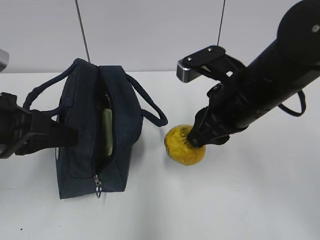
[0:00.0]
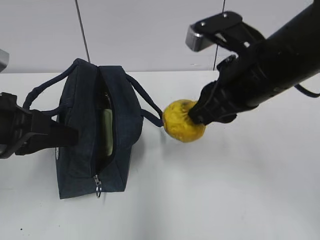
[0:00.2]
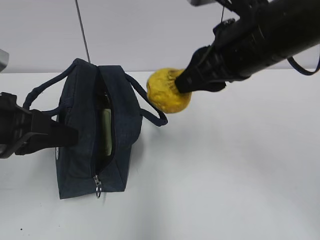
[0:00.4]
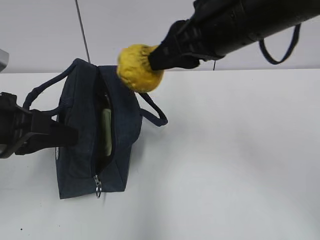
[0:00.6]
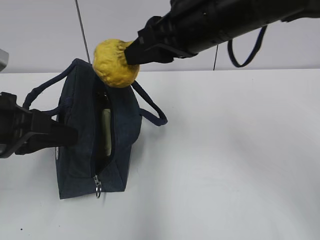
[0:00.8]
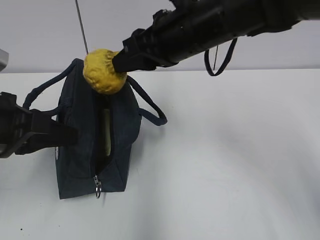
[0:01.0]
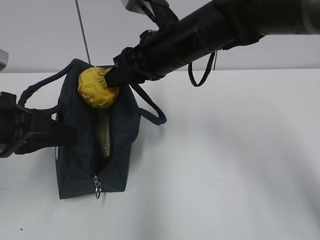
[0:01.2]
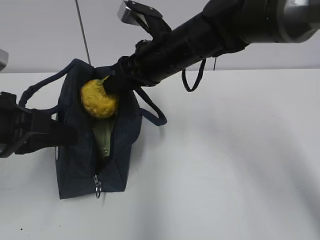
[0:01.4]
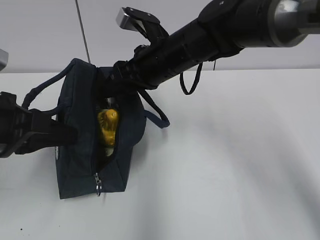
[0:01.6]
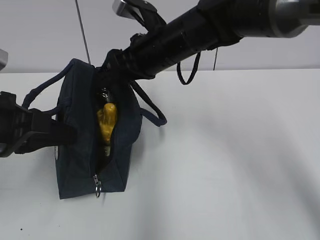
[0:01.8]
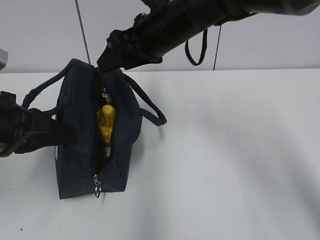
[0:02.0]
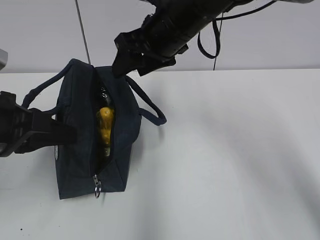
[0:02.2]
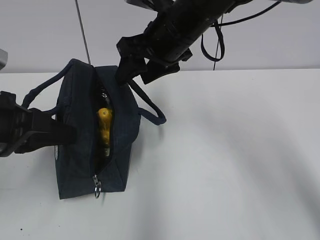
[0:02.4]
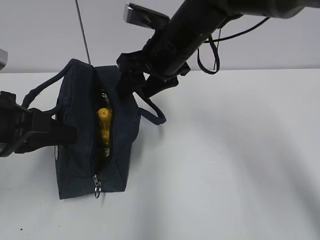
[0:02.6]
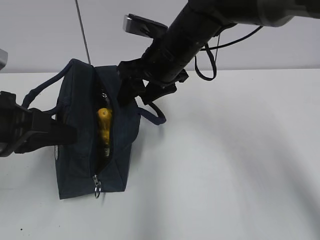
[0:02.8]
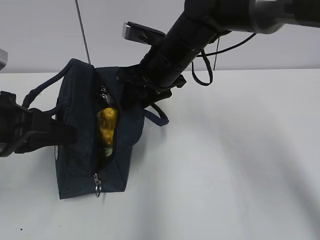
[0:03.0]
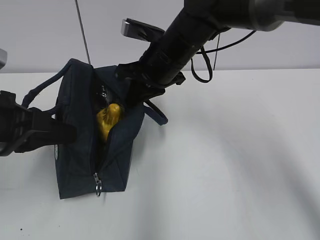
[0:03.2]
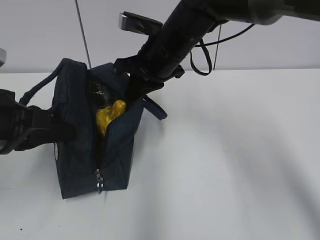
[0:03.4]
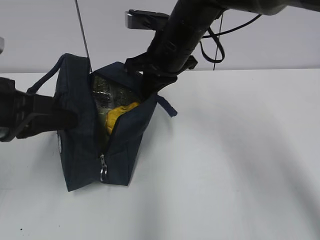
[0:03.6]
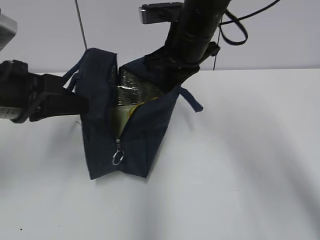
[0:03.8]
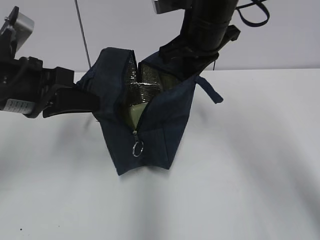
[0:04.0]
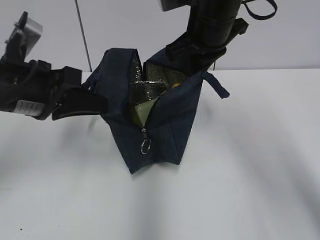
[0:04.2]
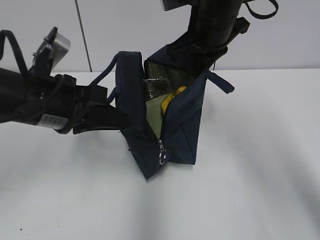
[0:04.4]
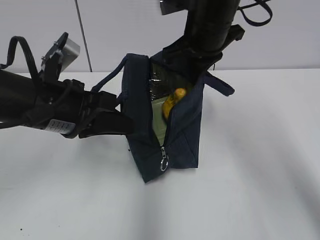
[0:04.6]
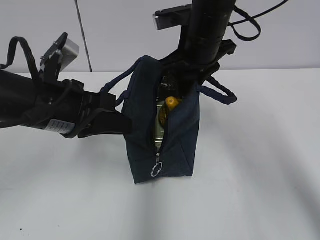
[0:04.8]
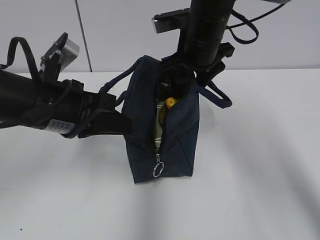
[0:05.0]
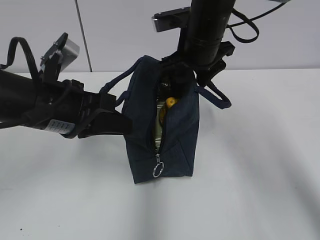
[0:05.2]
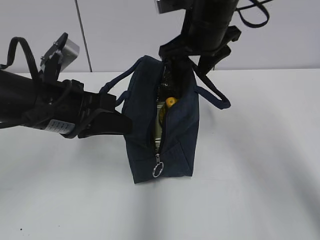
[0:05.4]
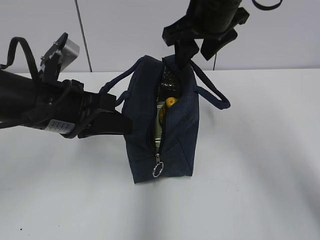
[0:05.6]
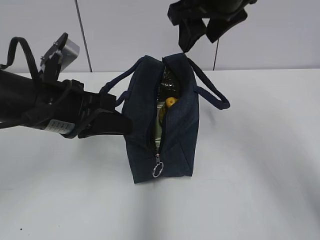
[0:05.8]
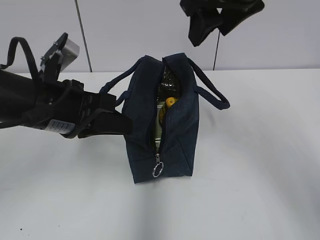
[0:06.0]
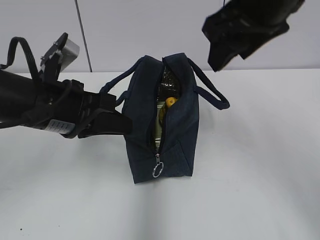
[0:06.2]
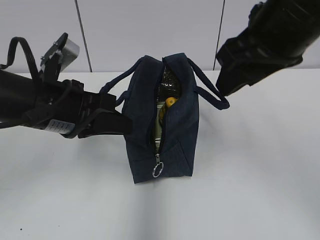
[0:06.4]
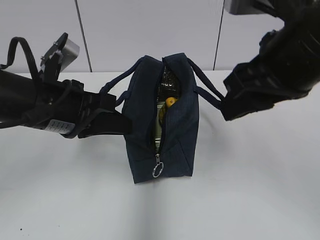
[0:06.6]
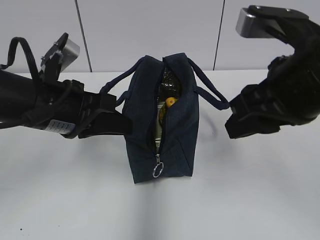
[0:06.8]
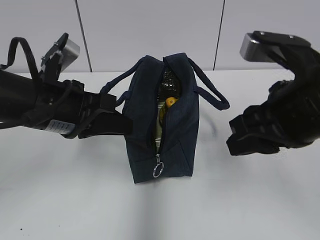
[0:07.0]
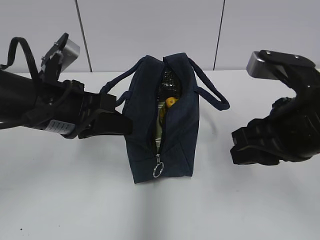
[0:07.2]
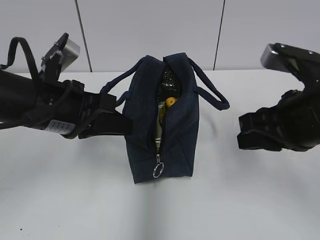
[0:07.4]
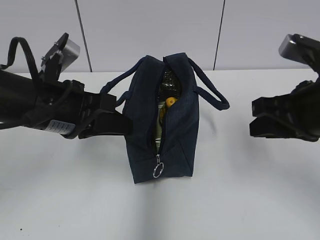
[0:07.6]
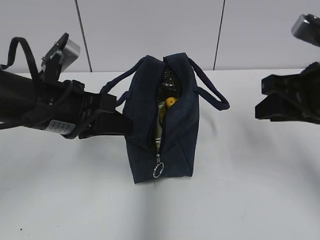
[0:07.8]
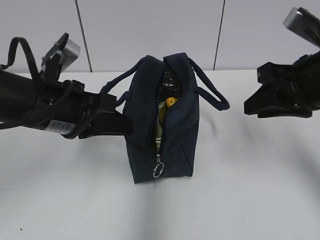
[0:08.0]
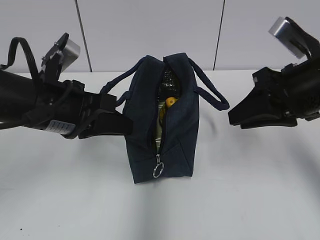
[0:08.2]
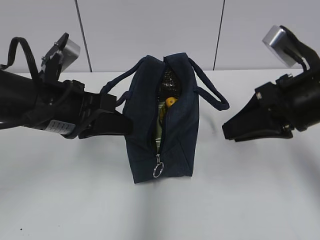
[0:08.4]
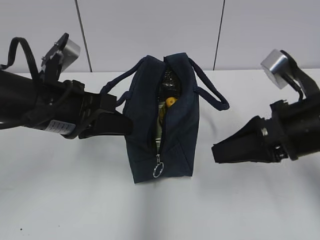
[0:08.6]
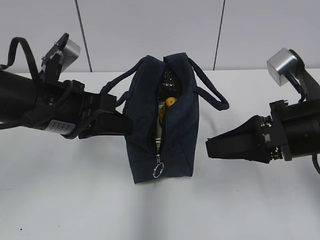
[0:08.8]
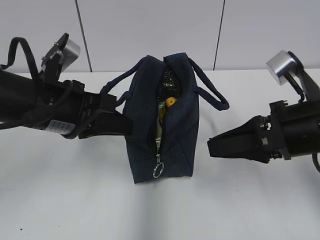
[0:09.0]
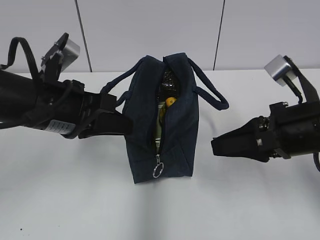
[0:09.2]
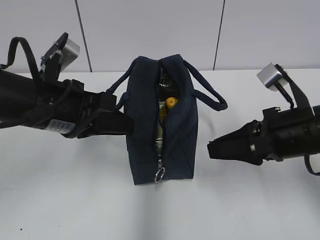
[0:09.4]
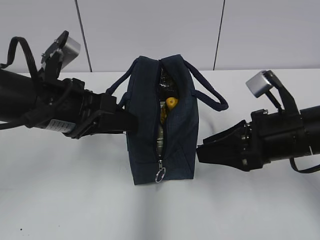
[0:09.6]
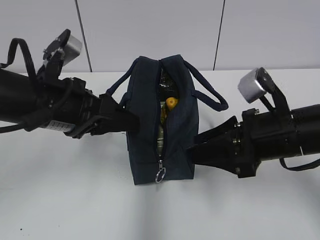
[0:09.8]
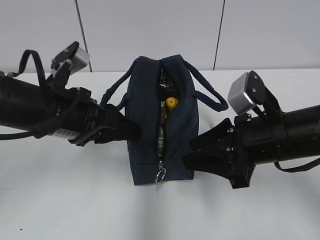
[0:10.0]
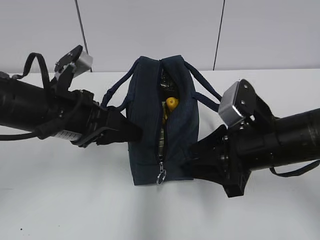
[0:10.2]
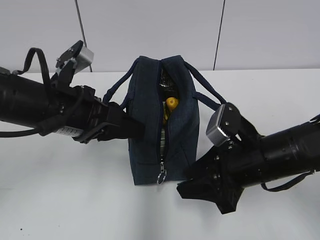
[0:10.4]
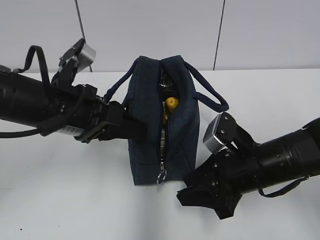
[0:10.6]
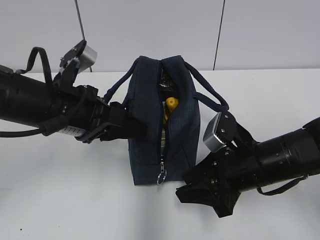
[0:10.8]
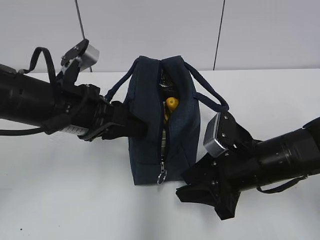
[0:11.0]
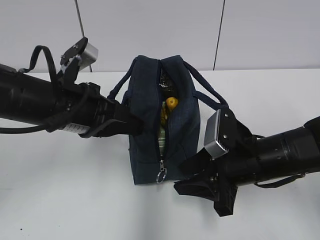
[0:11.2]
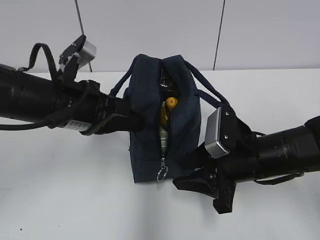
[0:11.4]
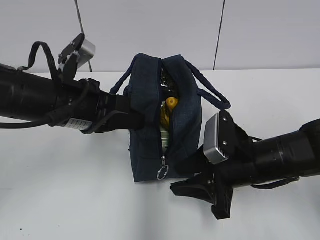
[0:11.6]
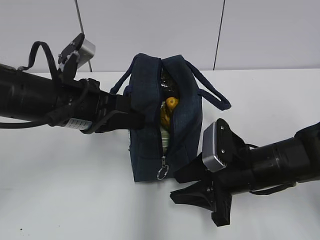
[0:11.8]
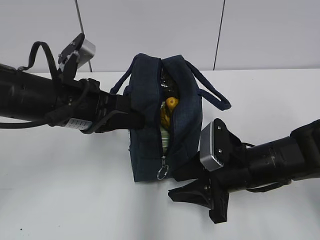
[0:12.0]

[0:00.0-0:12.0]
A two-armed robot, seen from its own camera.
Step, 0:00.0 to 0:02.0: Place it into the bag with your right hand.
Step, 0:02.2 to 0:03.4: Grab the lunch bag with your right hand.
Step, 0:03.6 to 0:03.8: Move the lunch bag to the left.
Step, 0:04.0 to 0:05.0: Move the lunch bag to the right.
0:00.0 to 0:01.6: The right gripper goes some 15 cm forward and to the left, and opens up.
0:03.0 to 0:04.4: The left gripper shifts roughly 5 cm to the right. The right gripper travels upward and to the right by approximately 10 cm, and closes its fingers.
0:04.4 to 0:06.0: The right gripper is displaced upward and backward by roughly 10 cm, and opens up.
0:06.0 to 0:07.6: The right gripper goes about 20 cm downward, backward and to the right, and closes up.
0:09.0 to 0:10.4: The right gripper shifts approximately 5 cm downward. Meanwhile the left gripper opens.
0:10.4 to 0:12.0: The left gripper closes up.

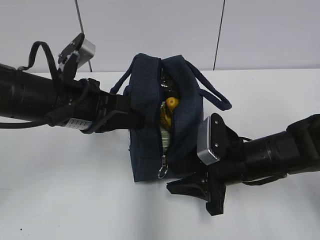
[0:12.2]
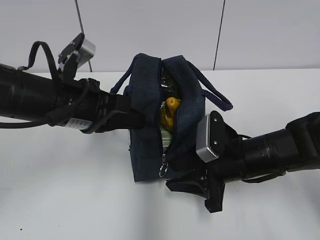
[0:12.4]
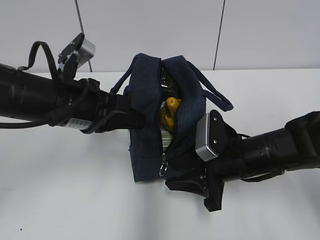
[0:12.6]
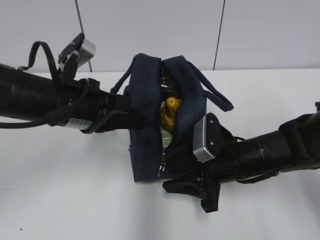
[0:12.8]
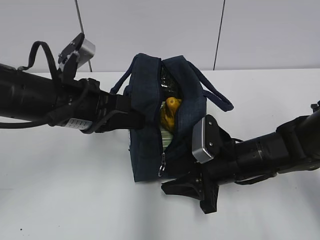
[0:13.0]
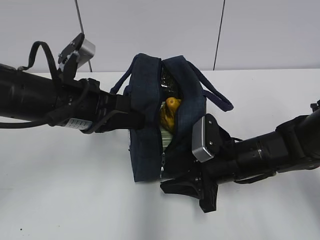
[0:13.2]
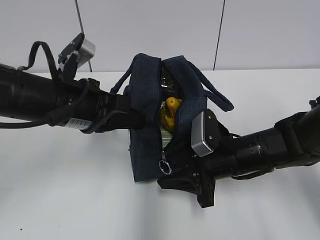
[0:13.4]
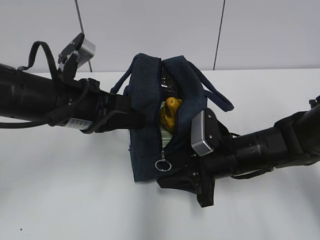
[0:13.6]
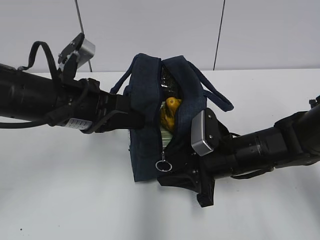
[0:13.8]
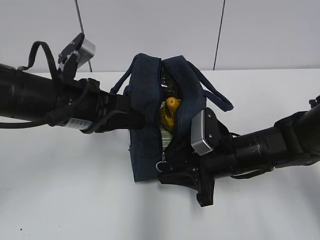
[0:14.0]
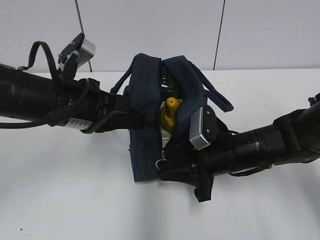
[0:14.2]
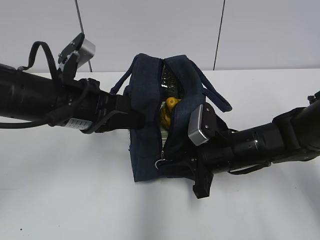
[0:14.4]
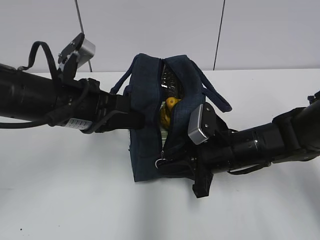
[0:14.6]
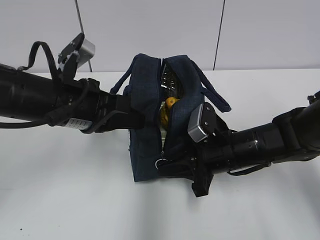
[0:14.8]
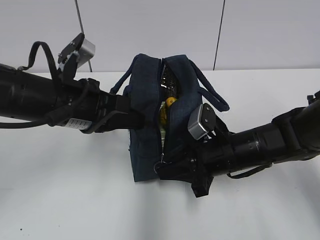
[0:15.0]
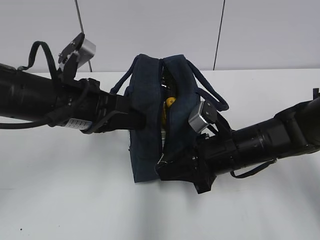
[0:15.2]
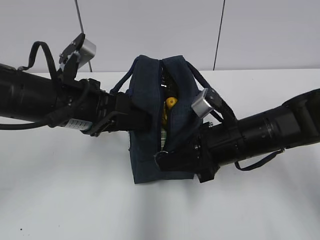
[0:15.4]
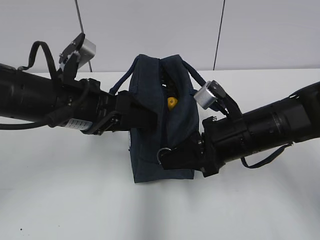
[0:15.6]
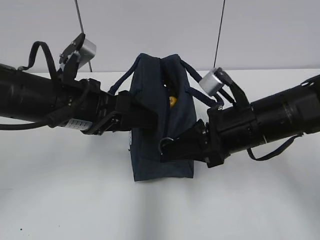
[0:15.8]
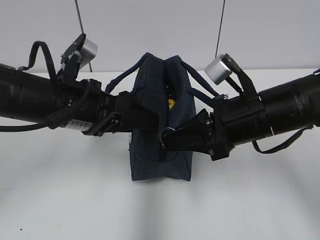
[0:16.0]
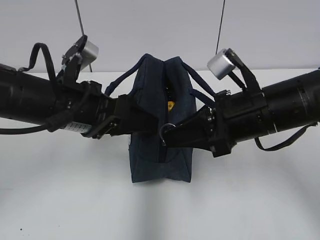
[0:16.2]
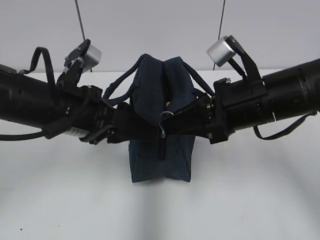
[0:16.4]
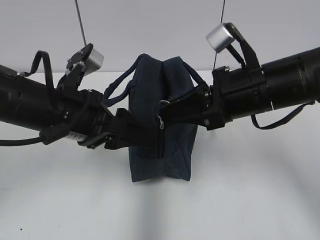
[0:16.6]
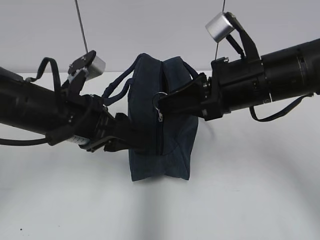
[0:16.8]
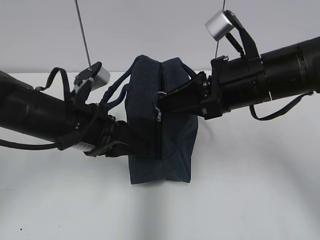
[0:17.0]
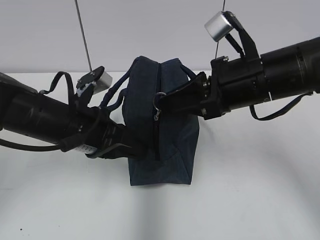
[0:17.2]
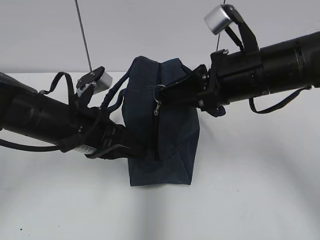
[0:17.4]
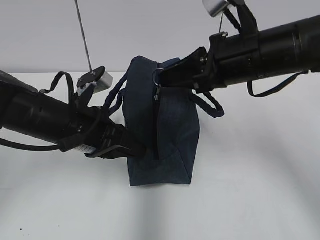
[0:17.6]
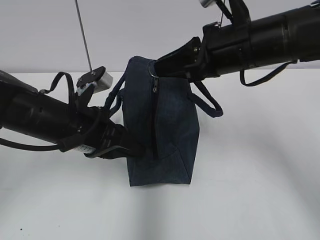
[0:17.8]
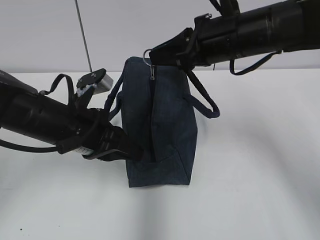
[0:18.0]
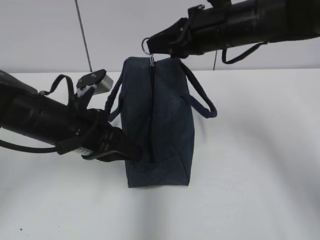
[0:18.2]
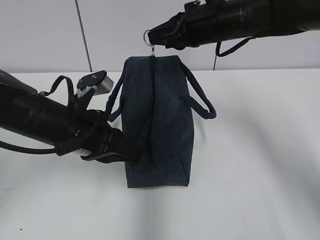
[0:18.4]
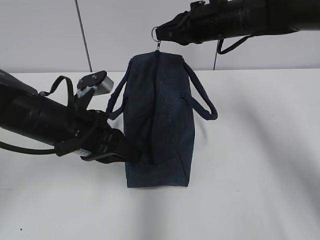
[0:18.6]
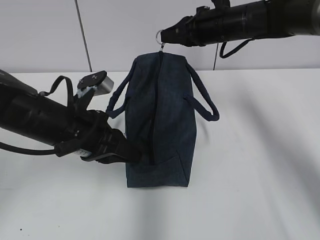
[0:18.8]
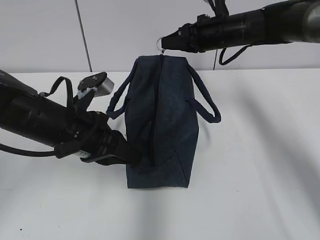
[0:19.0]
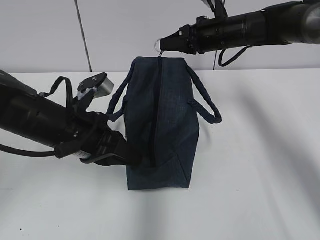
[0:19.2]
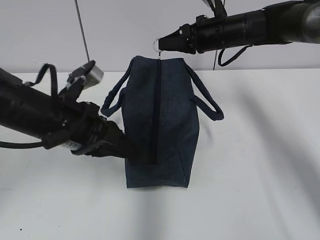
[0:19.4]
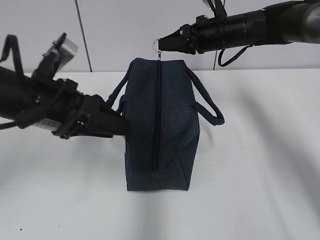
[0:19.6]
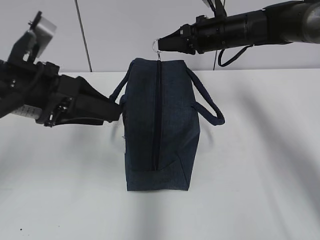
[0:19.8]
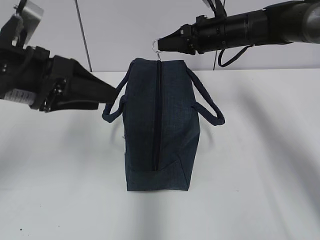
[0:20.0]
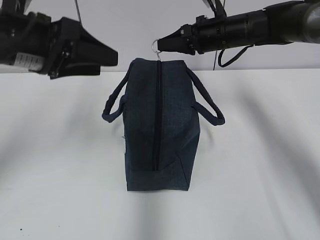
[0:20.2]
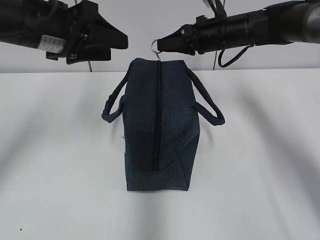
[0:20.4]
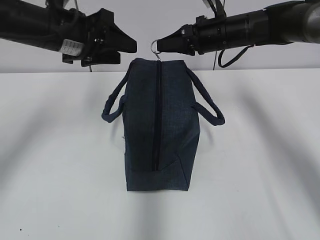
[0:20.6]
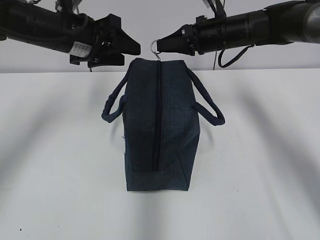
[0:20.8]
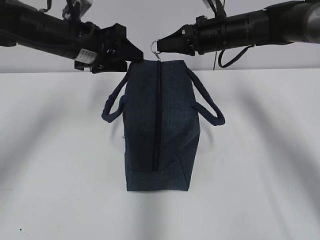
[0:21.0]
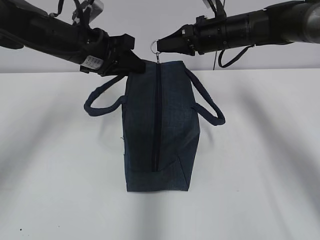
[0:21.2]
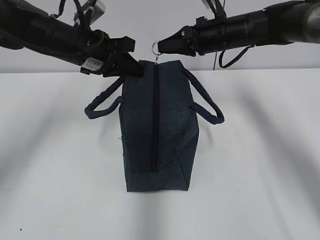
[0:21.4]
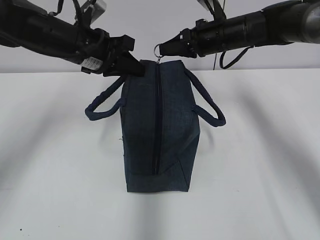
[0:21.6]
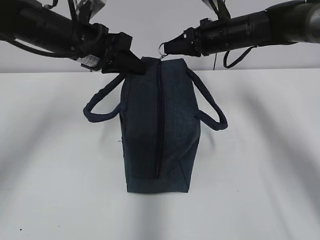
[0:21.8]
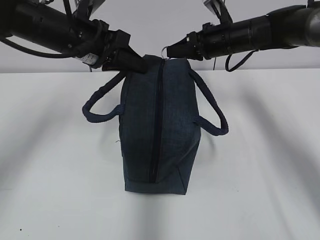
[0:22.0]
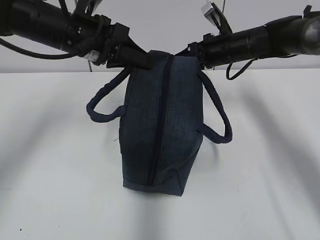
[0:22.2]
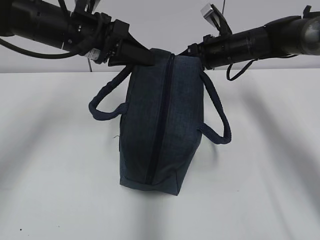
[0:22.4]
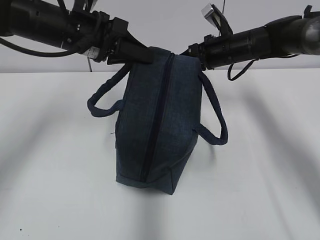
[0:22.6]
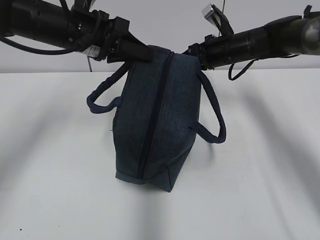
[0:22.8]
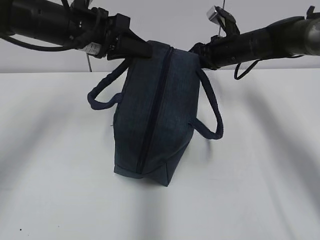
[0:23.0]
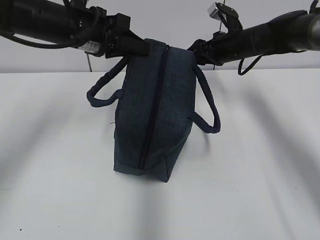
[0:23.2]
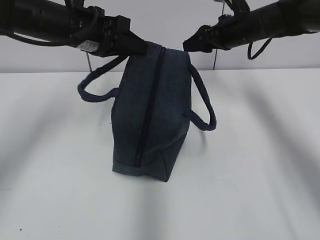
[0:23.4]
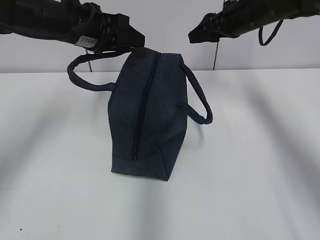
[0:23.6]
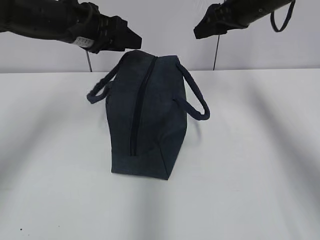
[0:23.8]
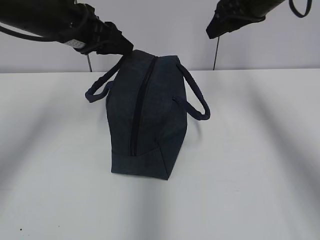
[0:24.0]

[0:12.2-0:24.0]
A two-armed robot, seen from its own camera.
Step, 0:12.2 to 0:17.2: Grab the lunch bag with your left hand.
Step, 0:17.6 to 0:22.8: Pull the zipper with your right hand.
Step, 0:23.0 to 0:23.2: Grab the lunch bag with your left hand.
0:12.2 to 0:13.6: The grippers make only small movements.
0:13.6 to 0:15.2: The right gripper closes.
0:15.2 to 0:16.6: The right gripper travels upward by approximately 10 cm, while the left gripper opens its fingers.
0:16.6 to 0:18.2: The left gripper closes up. Meanwhile the right gripper shifts about 10 cm forward.
0:18.2 to 0:19.6: The right gripper is displaced forward and downward by approximately 10 cm, while the left gripper travels upward by roughly 5 cm, and opens its fingers.
0:19.6 to 0:21.0: The left gripper is displaced forward by roughly 15 cm.
0:21.0 to 0:22.6: The left gripper closes; the right gripper shifts by approximately 5 cm.
0:22.6 to 0:24.0: The left gripper opens up. The right gripper is displaced upward and backward by roughly 15 cm, and opens its fingers.
